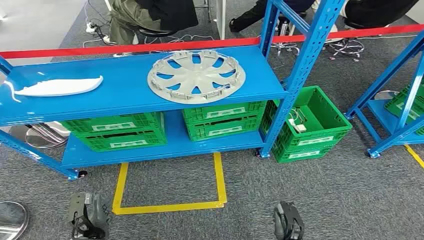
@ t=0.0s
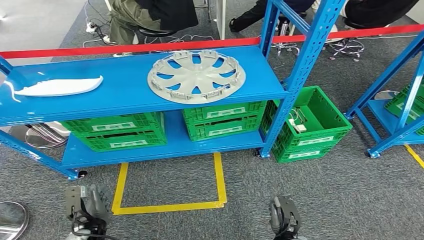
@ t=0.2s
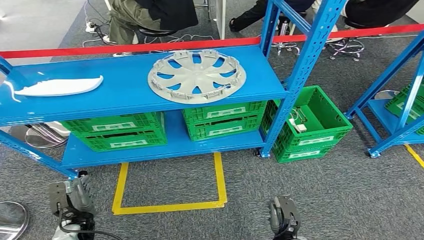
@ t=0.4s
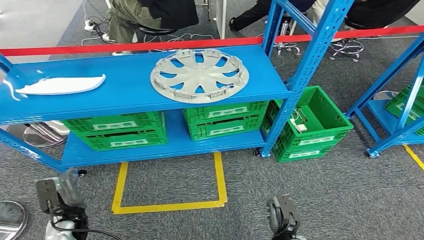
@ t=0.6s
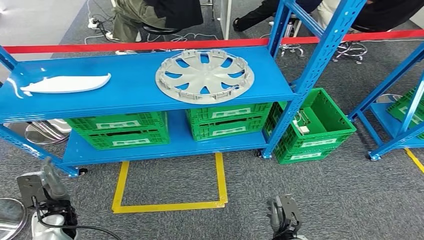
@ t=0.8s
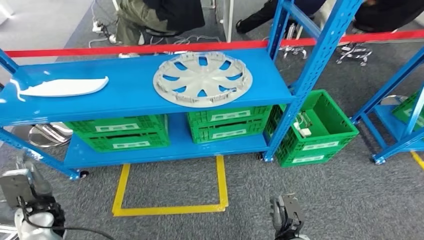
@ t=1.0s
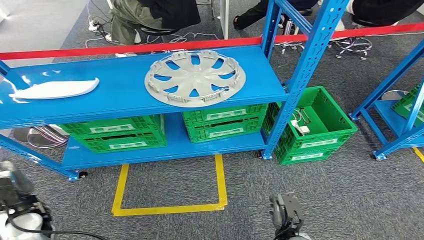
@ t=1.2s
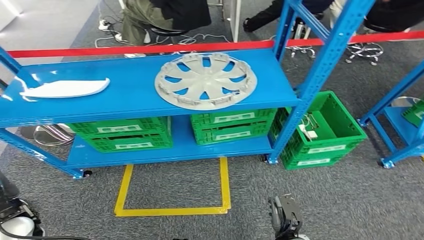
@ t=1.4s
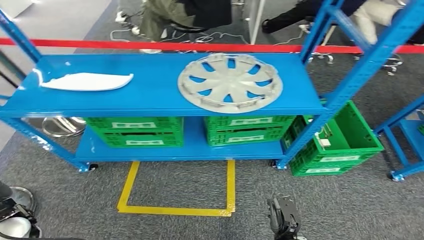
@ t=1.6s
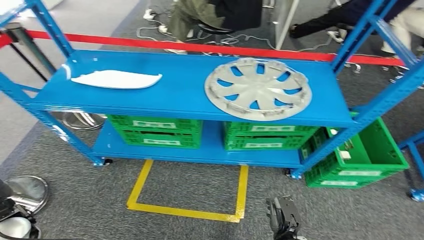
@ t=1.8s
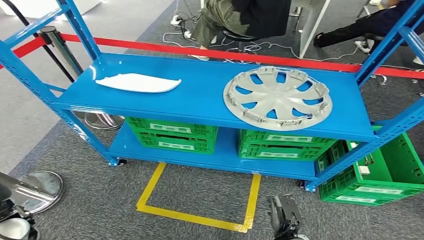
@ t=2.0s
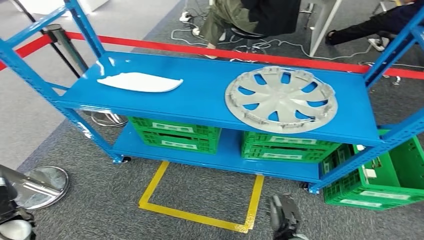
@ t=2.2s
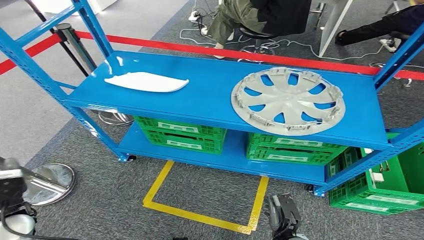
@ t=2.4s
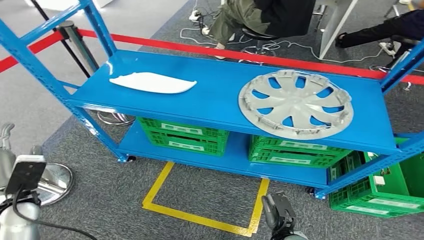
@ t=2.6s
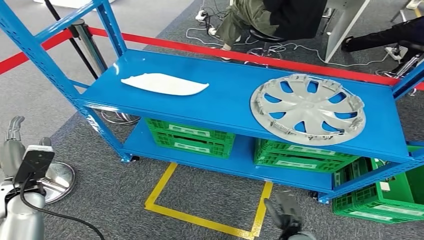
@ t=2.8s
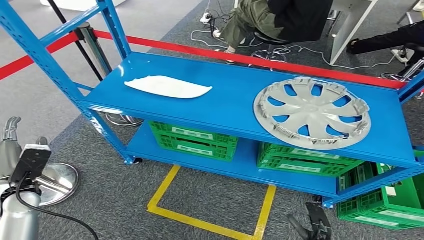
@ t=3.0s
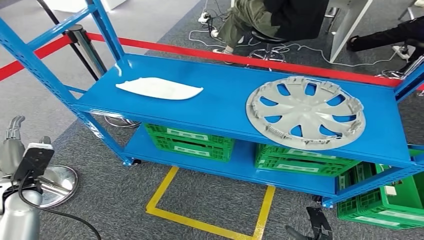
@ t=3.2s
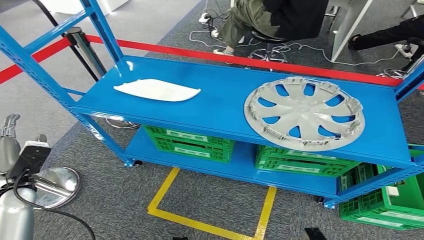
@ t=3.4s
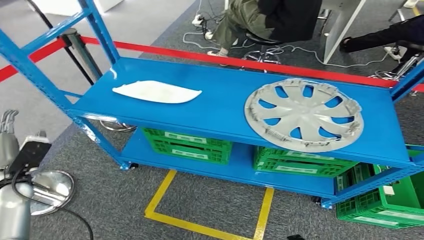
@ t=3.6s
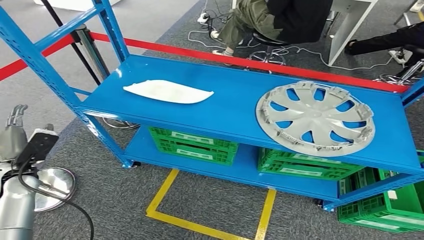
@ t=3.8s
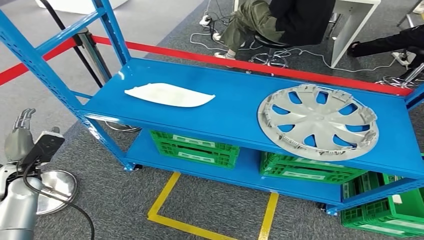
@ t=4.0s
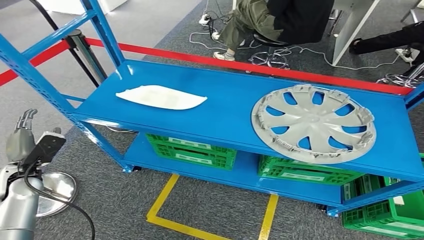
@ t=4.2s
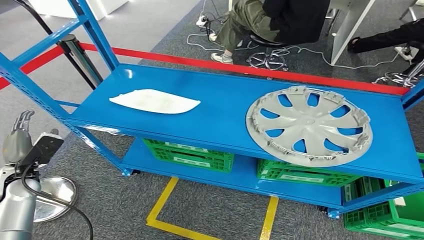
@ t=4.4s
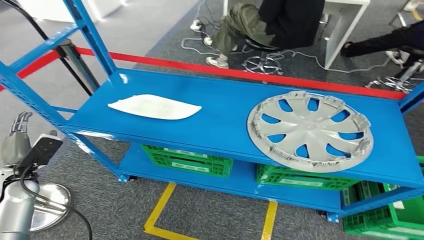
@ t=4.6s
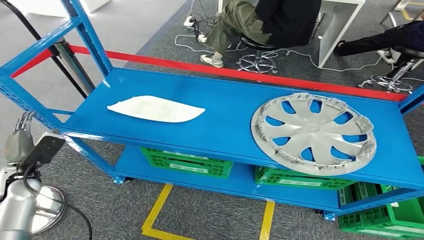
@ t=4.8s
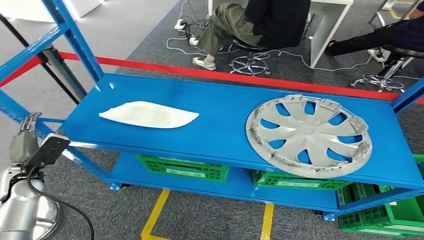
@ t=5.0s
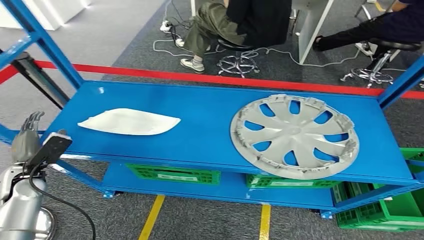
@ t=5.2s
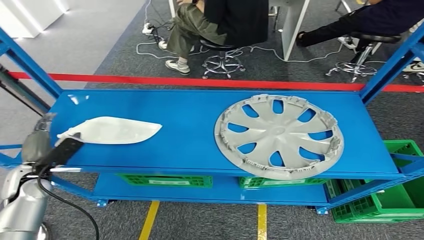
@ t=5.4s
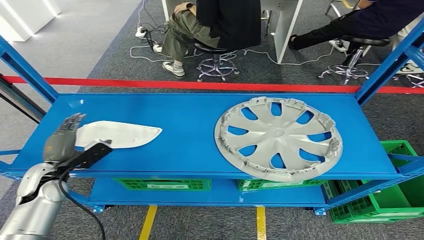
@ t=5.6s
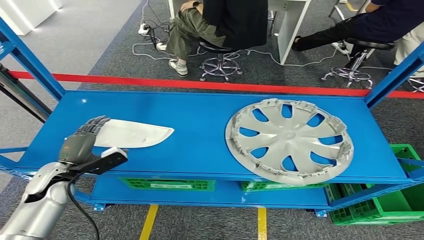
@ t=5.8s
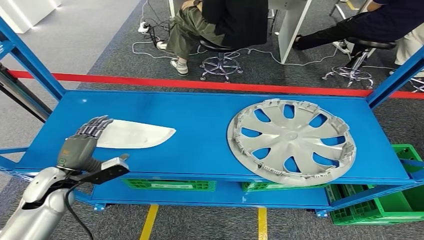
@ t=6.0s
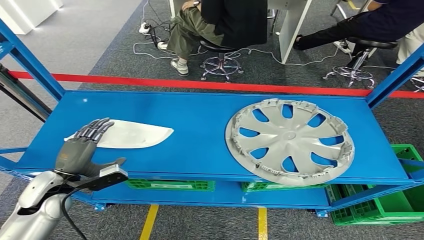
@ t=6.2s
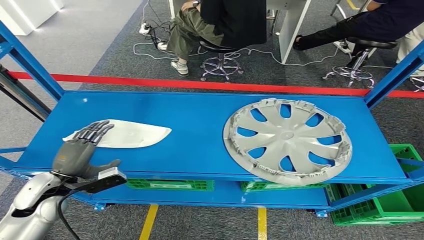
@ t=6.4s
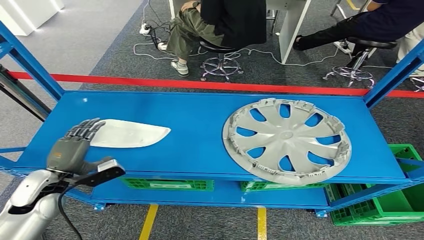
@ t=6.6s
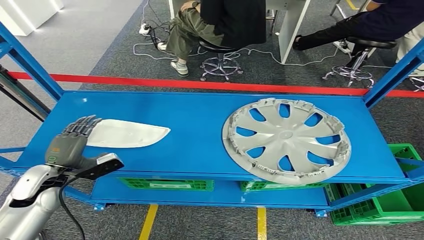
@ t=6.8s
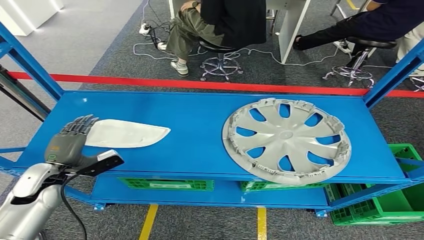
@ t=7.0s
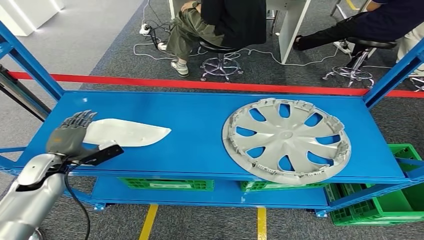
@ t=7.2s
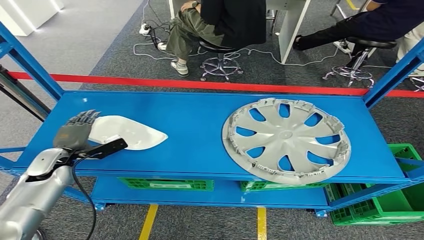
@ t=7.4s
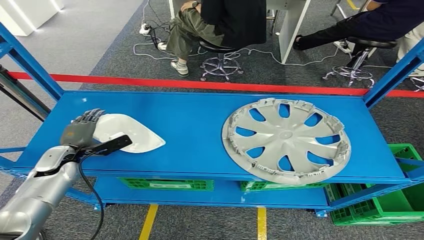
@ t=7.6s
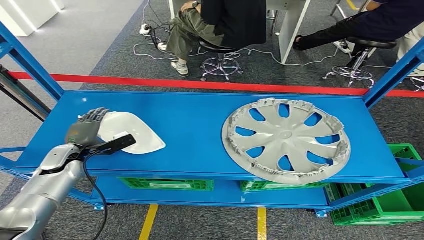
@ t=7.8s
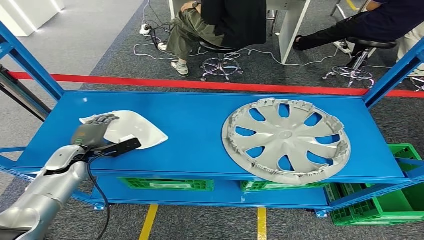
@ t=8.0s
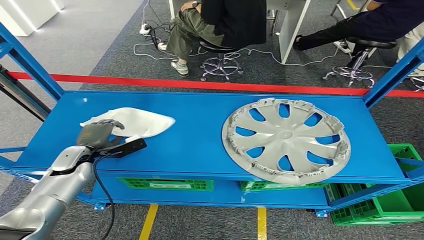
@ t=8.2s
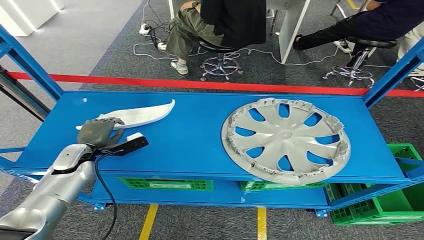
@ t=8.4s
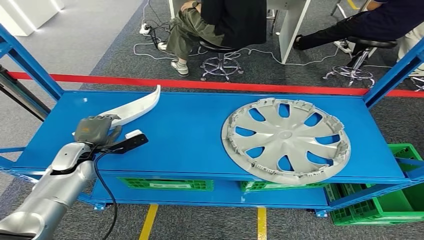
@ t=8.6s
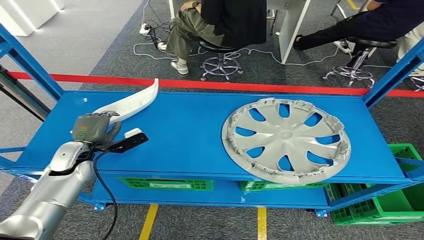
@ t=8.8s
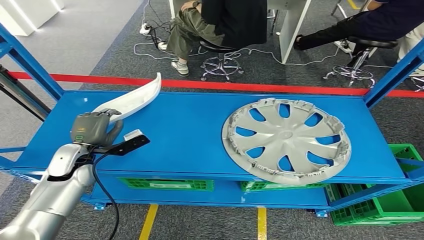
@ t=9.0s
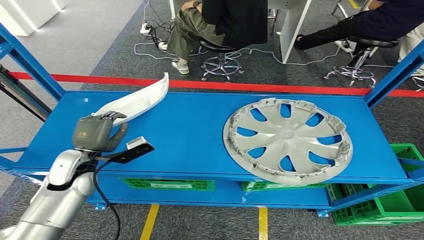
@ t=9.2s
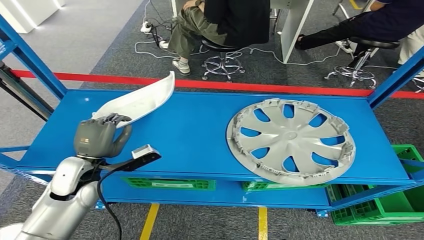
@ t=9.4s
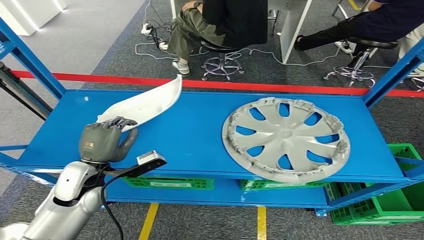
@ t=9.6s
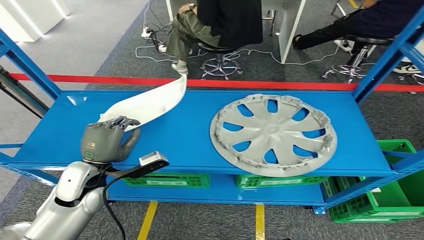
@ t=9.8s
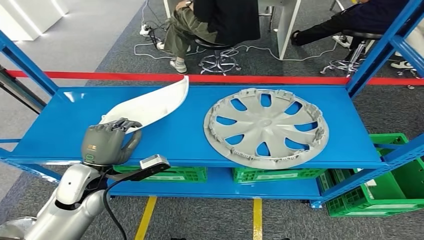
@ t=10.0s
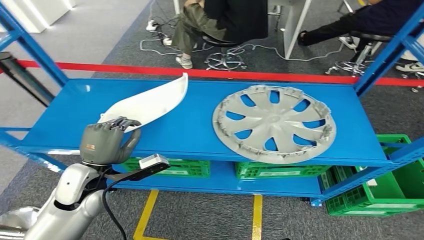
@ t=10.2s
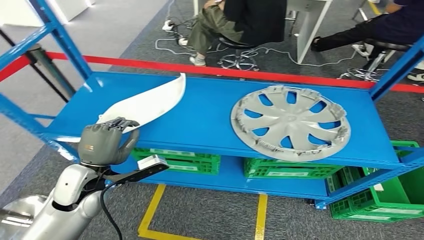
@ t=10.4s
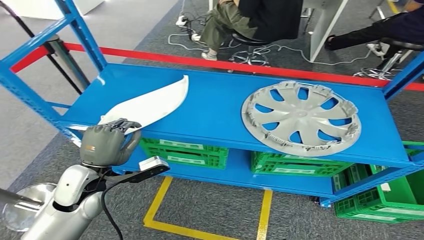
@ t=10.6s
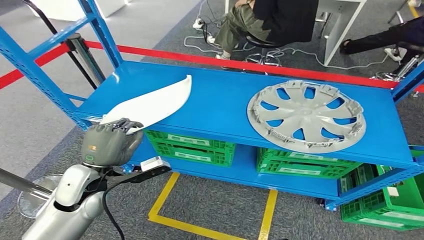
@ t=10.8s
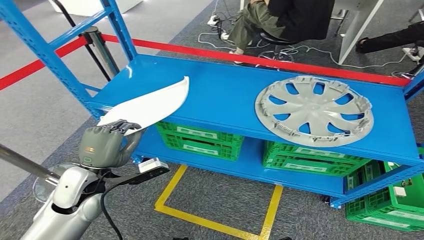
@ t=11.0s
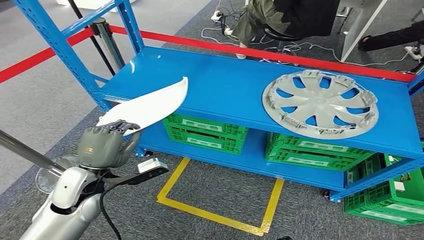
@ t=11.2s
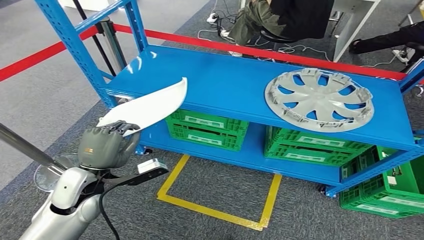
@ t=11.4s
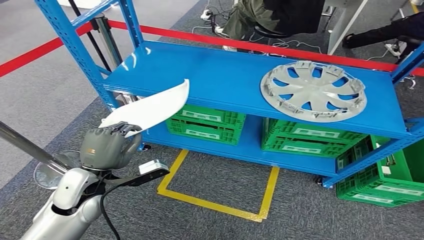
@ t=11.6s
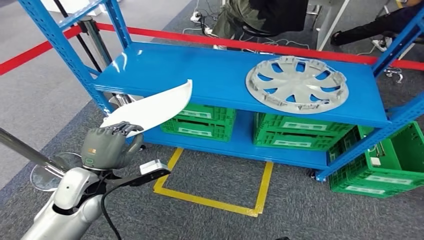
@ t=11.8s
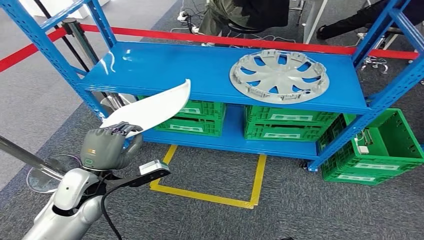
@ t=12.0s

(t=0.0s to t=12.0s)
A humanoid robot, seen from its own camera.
Step, t=0.0s - t=10.0s: Pick up the small parts from the shelf.
t=6.0s - t=7.6s: The left hand travels forward and to the left by about 10 cm.
t=7.6s - t=9.0s: The left hand is displaced to the right by about 10 cm.

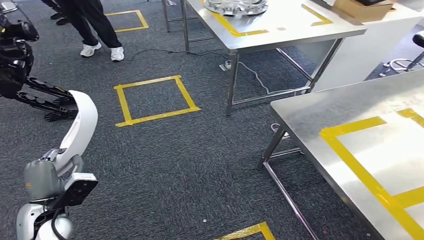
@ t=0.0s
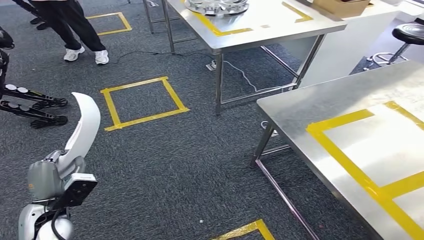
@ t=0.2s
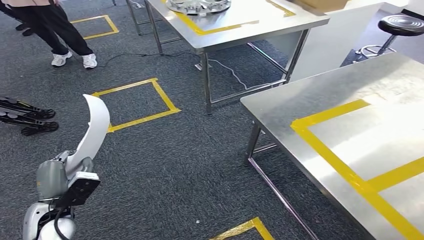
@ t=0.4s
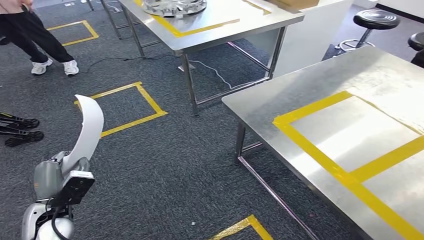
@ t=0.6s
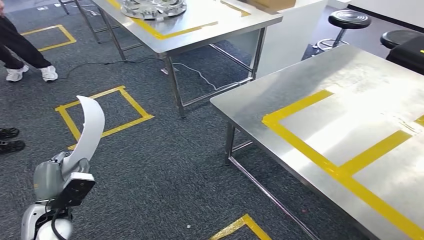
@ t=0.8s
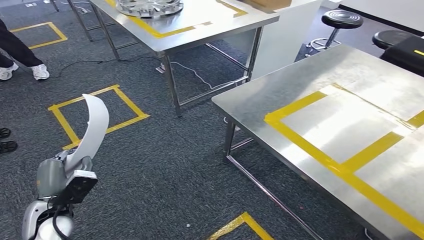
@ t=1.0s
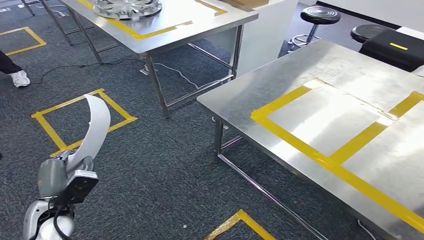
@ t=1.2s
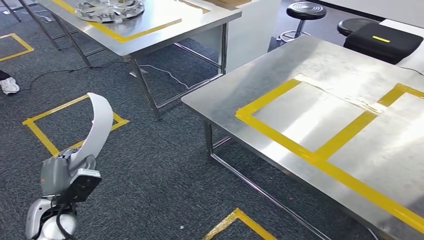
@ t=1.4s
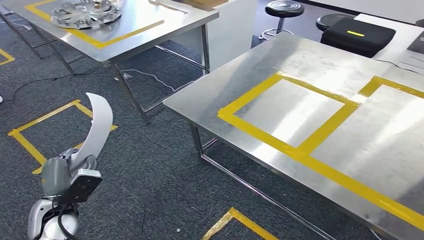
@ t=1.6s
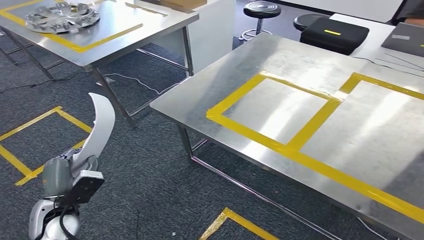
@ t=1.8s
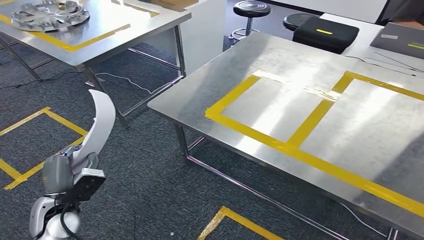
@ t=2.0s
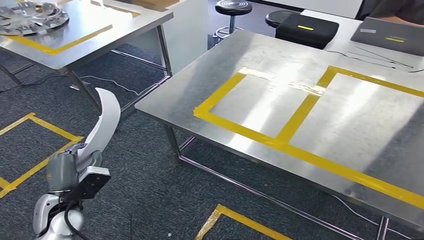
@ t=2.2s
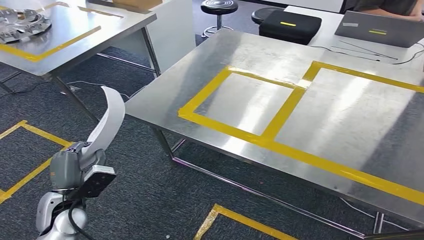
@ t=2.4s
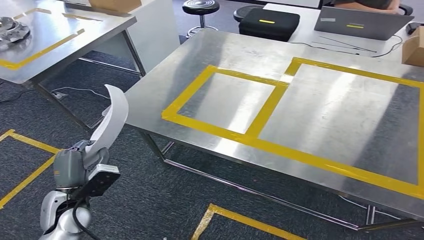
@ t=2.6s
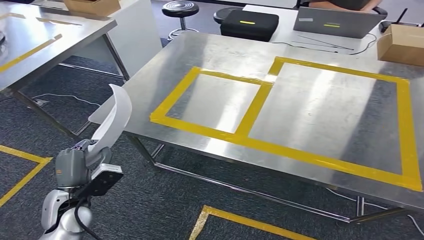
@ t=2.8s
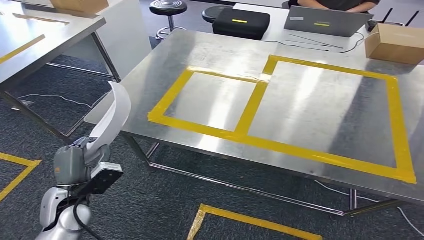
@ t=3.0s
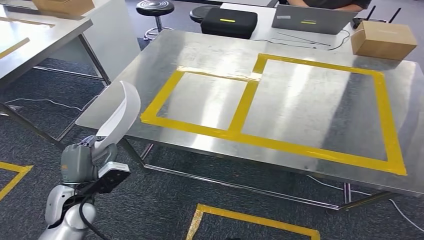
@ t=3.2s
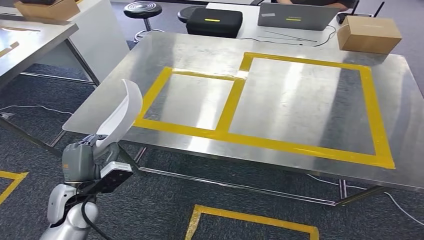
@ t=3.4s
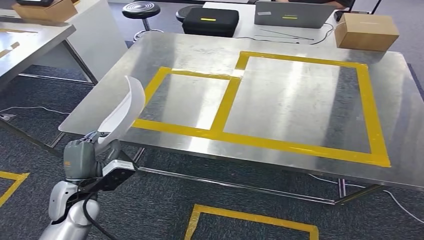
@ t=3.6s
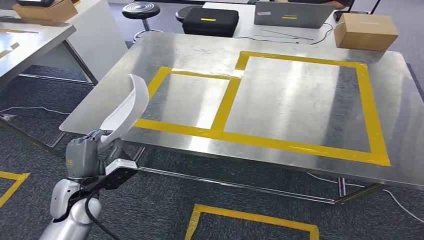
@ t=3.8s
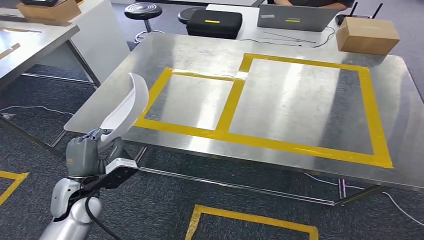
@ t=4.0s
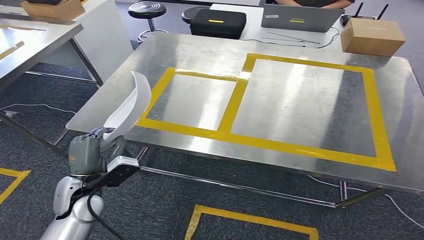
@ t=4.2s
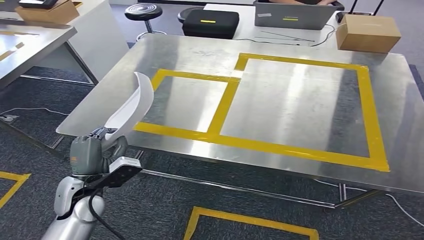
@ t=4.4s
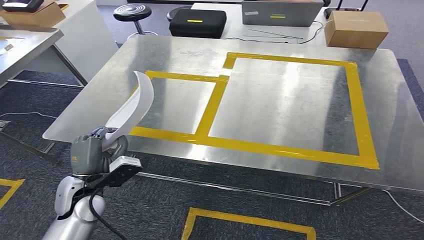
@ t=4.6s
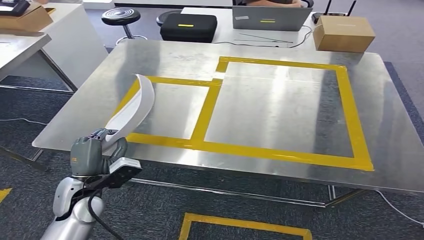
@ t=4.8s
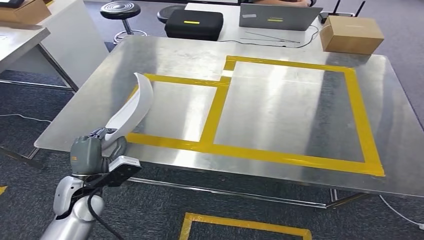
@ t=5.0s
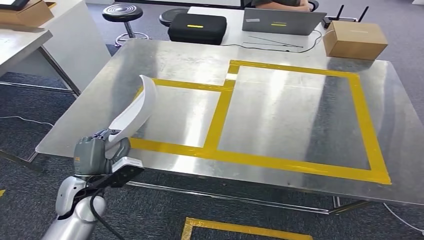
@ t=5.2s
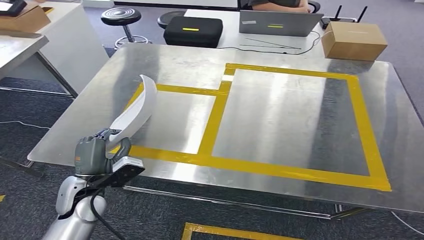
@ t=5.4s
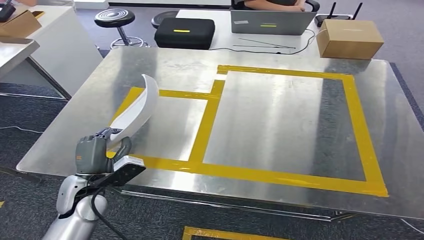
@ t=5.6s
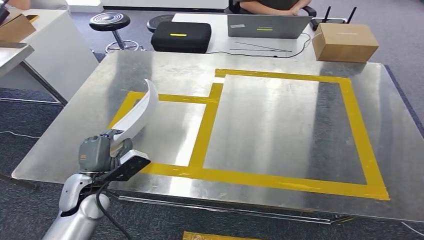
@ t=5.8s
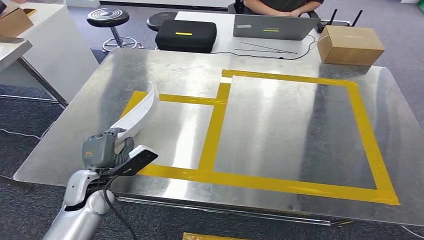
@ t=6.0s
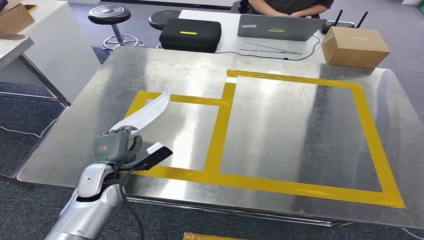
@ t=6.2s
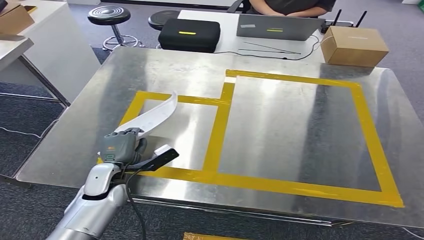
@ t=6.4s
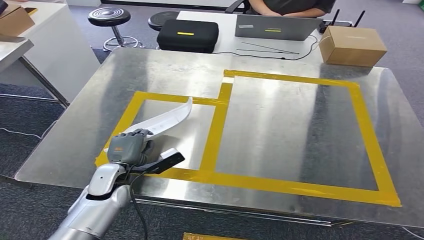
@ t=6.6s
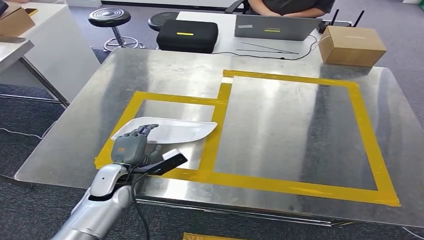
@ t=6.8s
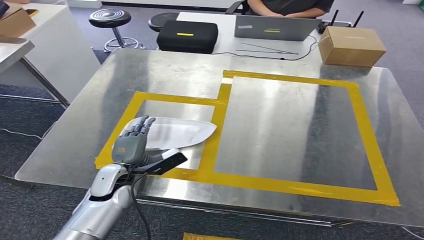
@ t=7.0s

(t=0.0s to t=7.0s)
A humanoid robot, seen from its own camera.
Step, t=0.0s - t=2.4s: Move the small parts to the workbench.
